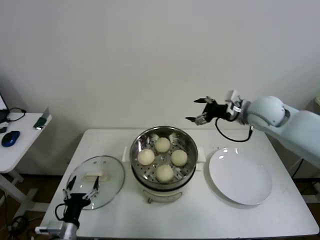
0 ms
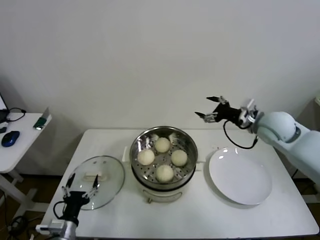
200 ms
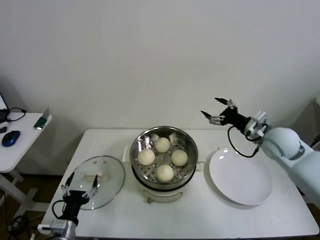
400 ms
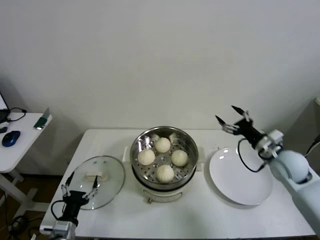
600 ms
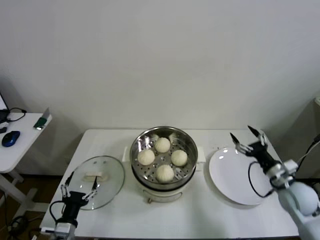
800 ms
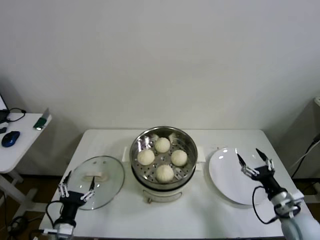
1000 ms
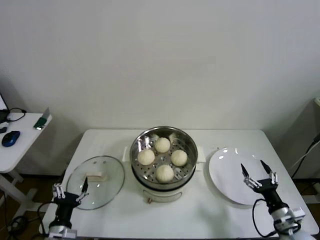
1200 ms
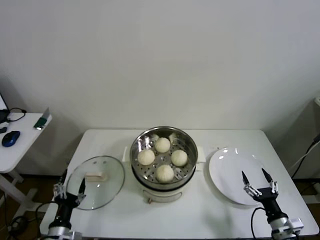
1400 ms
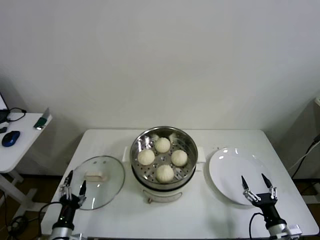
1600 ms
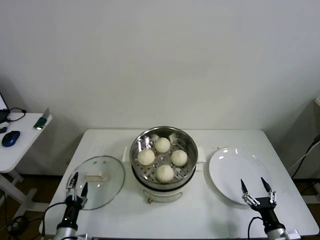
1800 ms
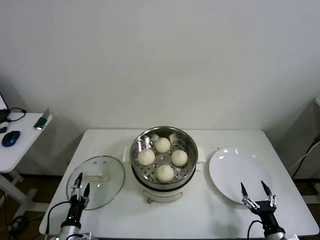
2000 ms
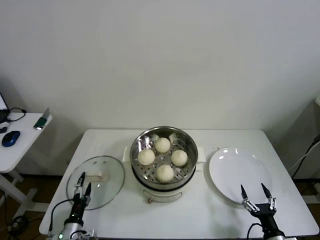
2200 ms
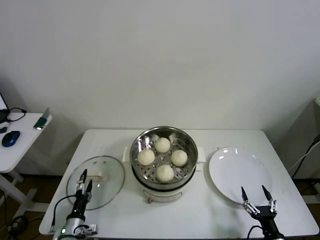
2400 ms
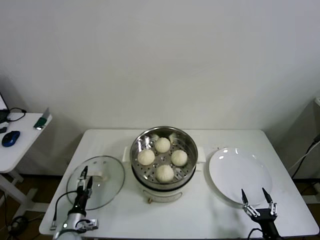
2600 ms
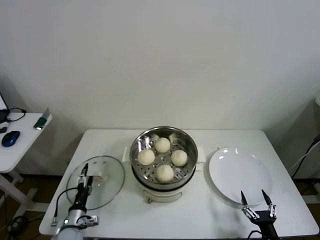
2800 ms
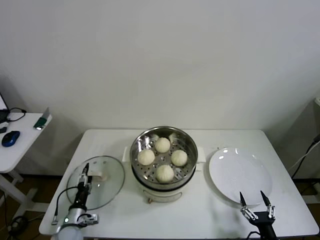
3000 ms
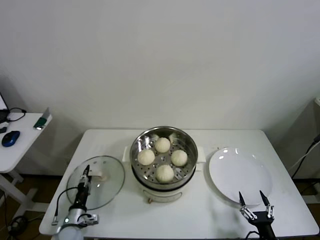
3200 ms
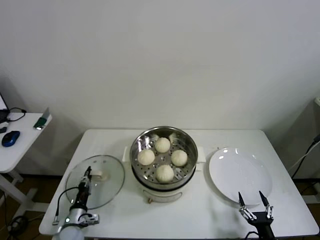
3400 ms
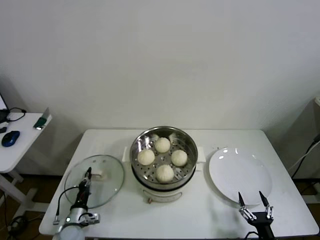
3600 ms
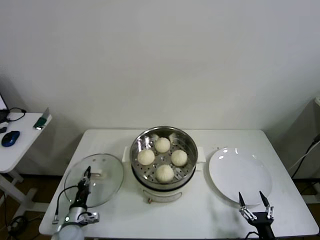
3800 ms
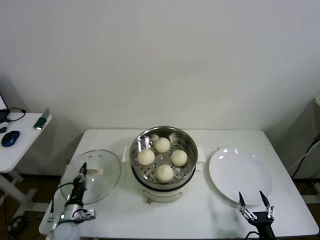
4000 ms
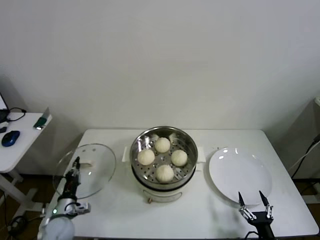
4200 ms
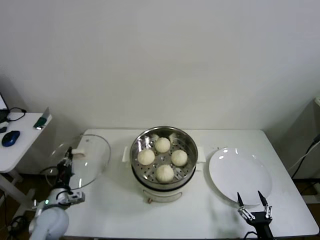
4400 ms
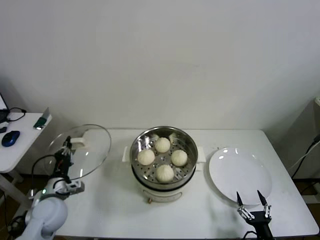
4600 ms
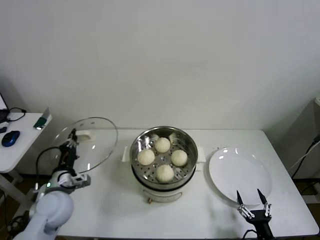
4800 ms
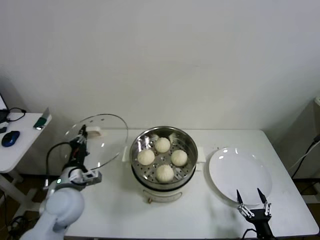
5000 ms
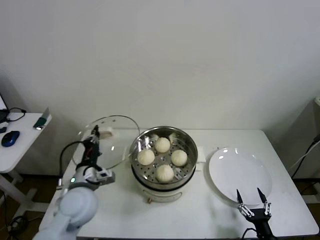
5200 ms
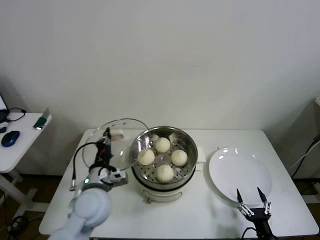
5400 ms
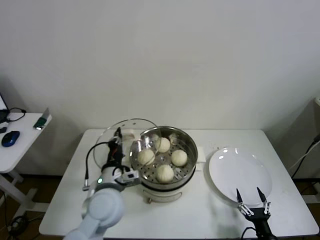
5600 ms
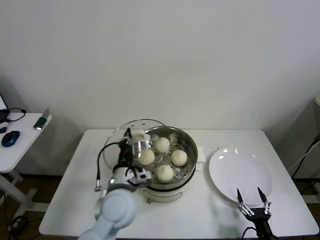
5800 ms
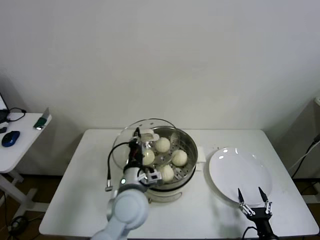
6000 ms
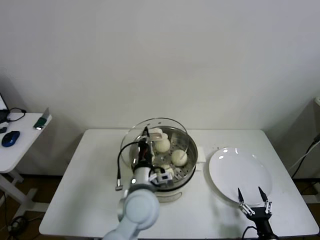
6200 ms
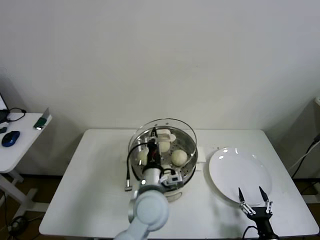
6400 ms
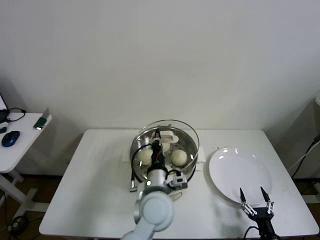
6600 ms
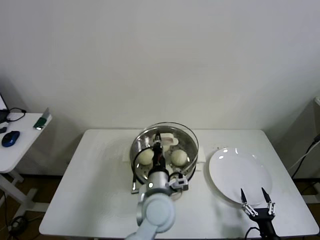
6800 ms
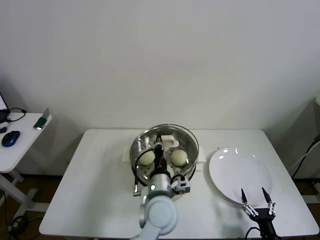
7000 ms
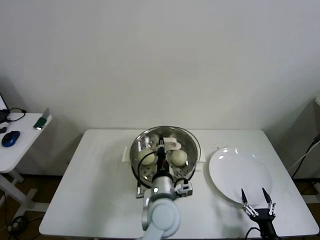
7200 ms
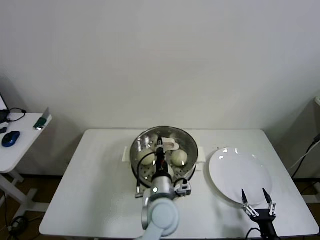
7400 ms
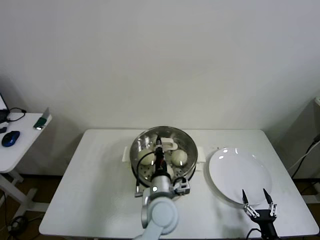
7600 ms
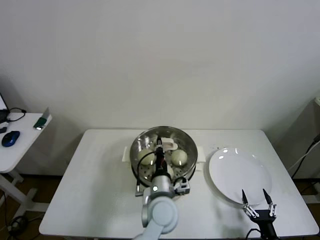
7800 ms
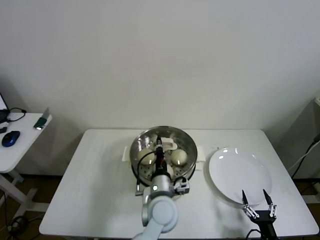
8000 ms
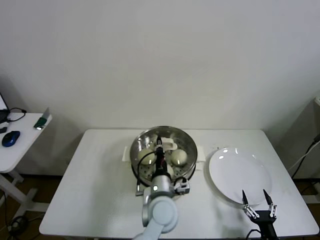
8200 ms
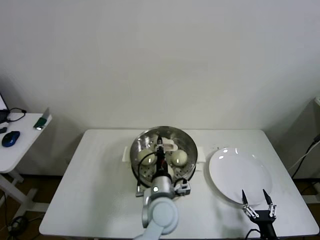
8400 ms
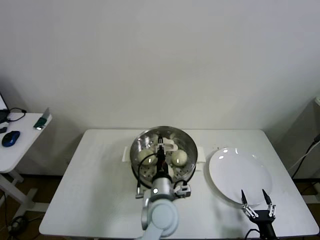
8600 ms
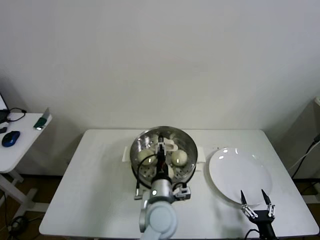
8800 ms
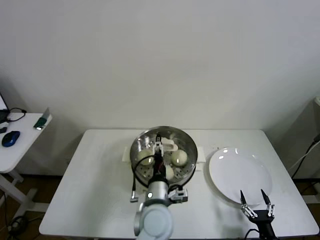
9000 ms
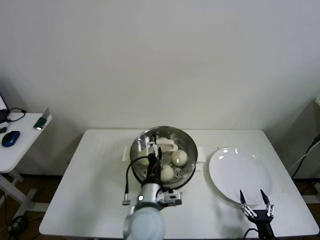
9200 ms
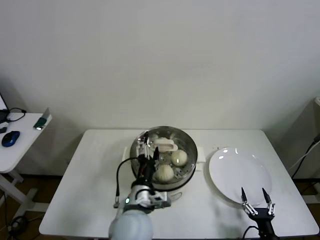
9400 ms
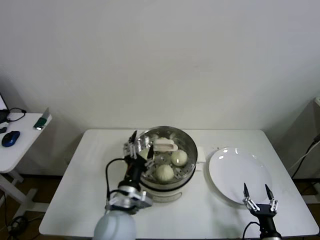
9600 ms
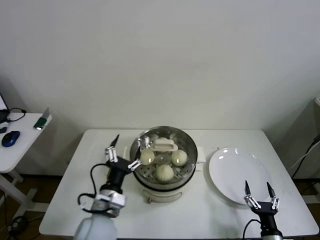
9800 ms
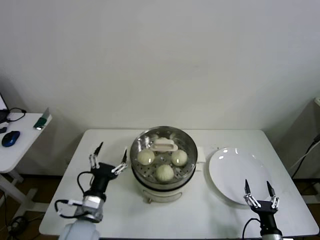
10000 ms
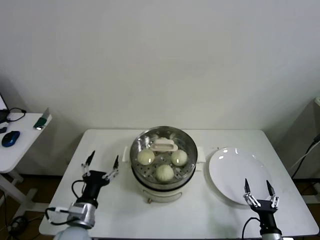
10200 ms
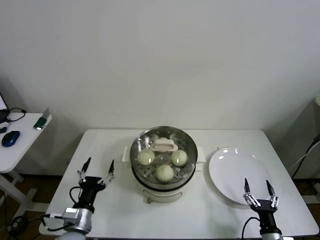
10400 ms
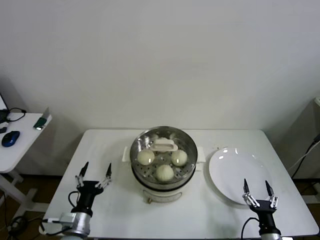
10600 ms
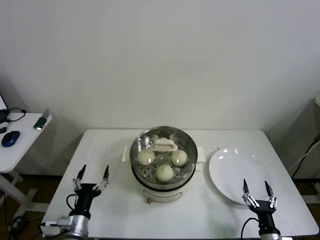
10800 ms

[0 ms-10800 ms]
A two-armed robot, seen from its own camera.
Step, 0 ms to 3400 ms: Grasp the pot lid with left gripper.
Step, 3800 ms to 8600 ms: Place the pot lid on the steamer with left gripper.
0 ms to 1600 ms: The right gripper is displaced downward and backward by approximately 50 cm.
1600 ms to 3000 ms: The right gripper heads backward, covering approximately 5 cm, while the left gripper travels forward and downward by some 10 cm.
3000 ms to 4600 ms: The left gripper goes roughly 15 cm upward, and closes.
4600 ms to 6200 ms: The left gripper heads to the right, covering about 30 cm.
6200 ms to 7800 ms: The left gripper moves to the right and downward, some 10 cm.
7800 ms to 9200 ms: The left gripper opens up.
9200 ms to 10800 ms: The left gripper heads to the left, covering some 25 cm.

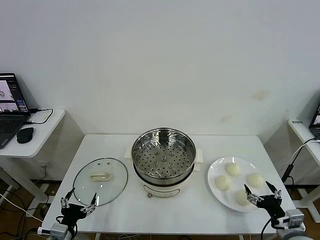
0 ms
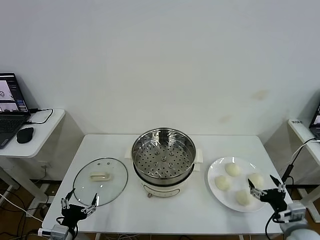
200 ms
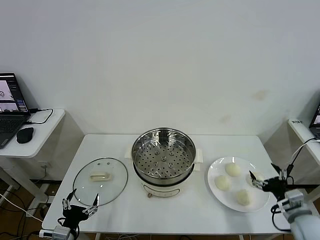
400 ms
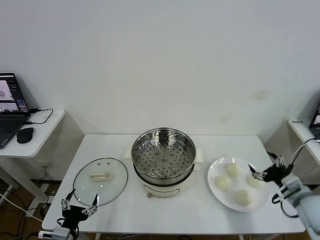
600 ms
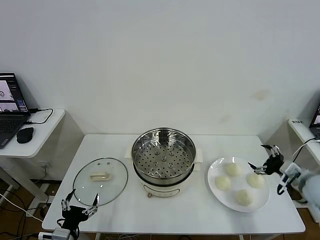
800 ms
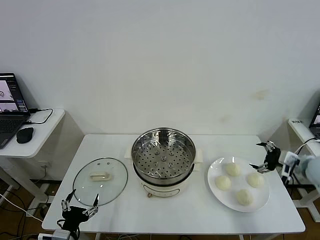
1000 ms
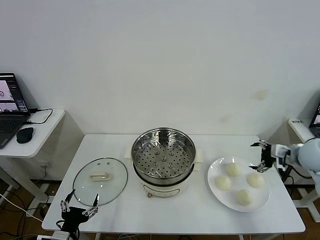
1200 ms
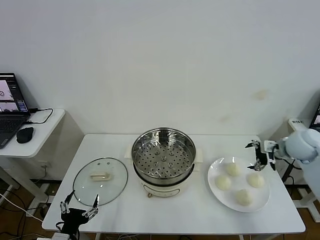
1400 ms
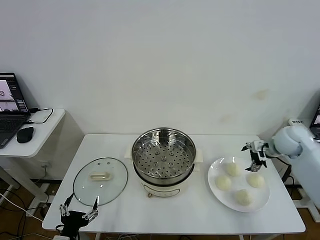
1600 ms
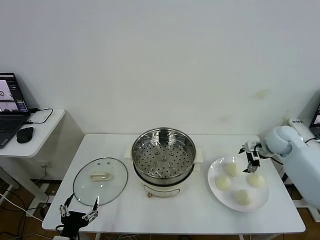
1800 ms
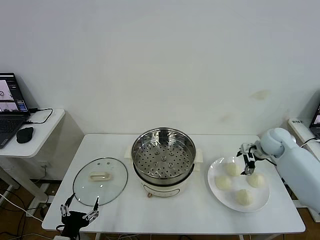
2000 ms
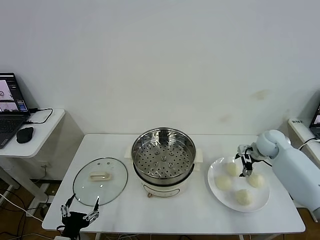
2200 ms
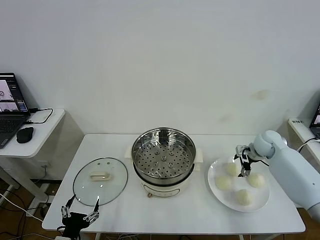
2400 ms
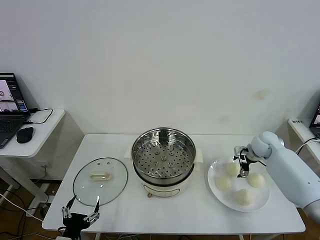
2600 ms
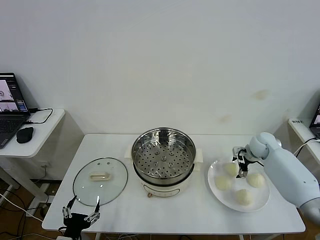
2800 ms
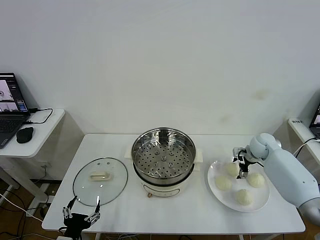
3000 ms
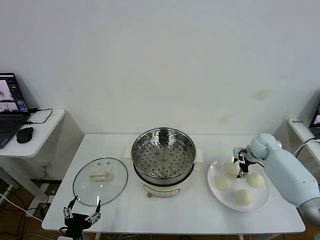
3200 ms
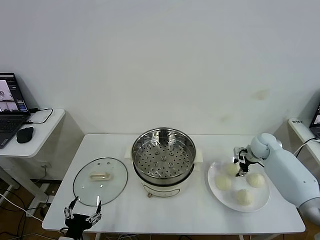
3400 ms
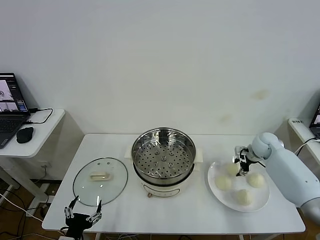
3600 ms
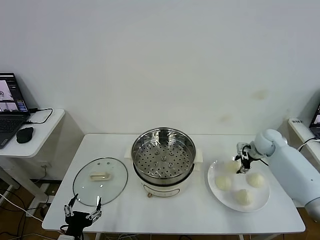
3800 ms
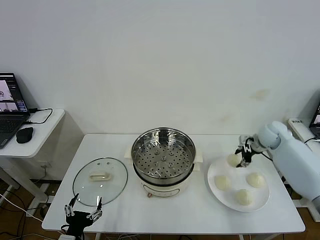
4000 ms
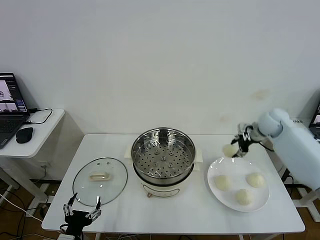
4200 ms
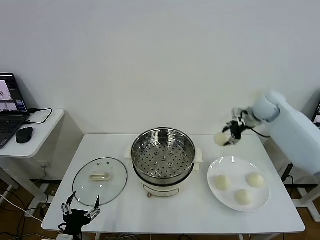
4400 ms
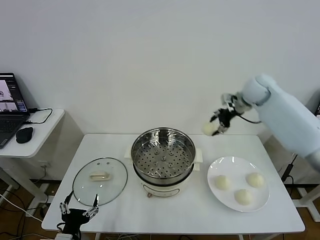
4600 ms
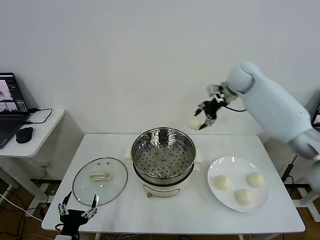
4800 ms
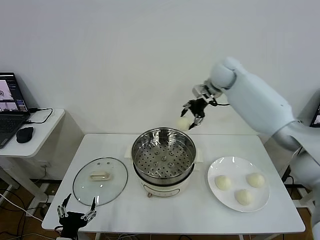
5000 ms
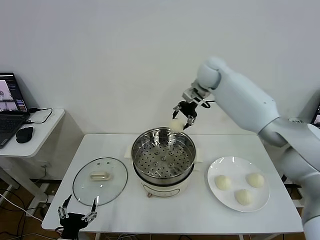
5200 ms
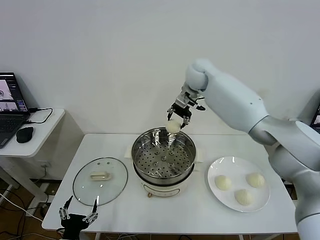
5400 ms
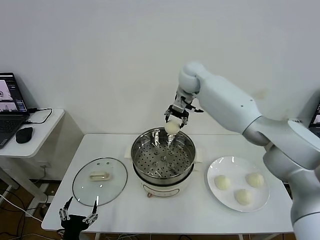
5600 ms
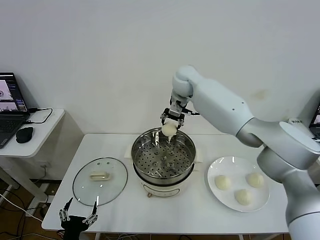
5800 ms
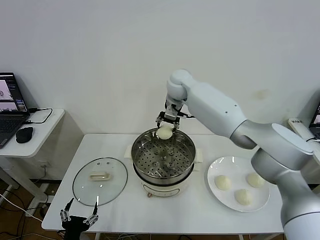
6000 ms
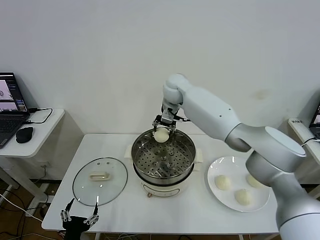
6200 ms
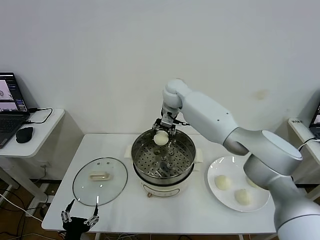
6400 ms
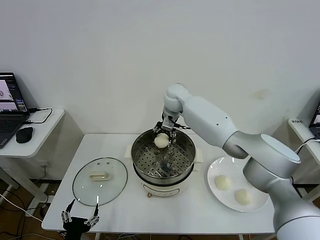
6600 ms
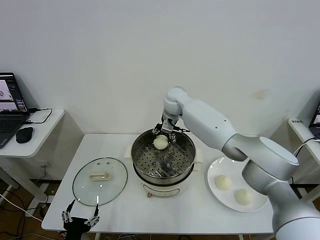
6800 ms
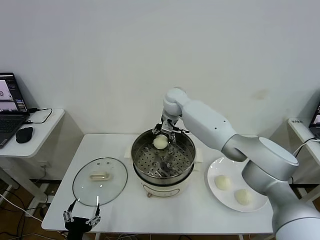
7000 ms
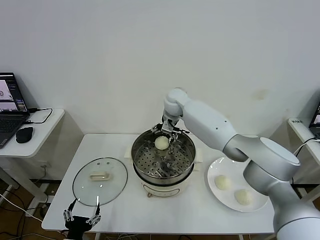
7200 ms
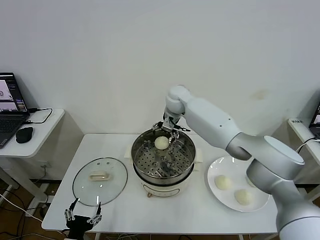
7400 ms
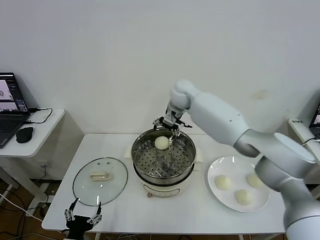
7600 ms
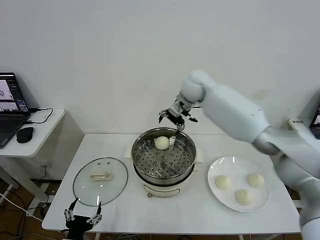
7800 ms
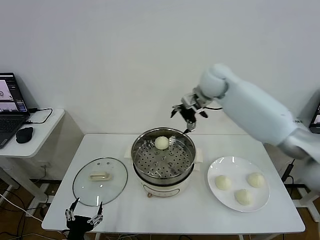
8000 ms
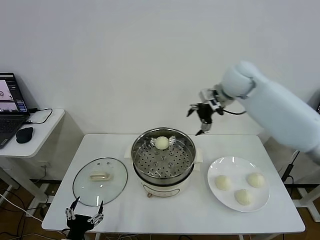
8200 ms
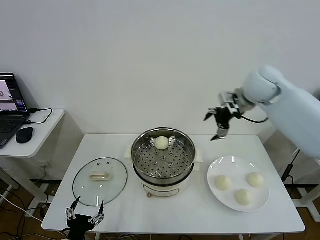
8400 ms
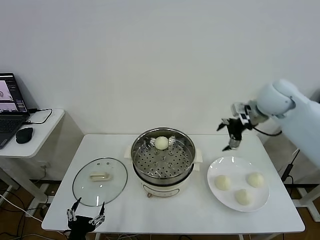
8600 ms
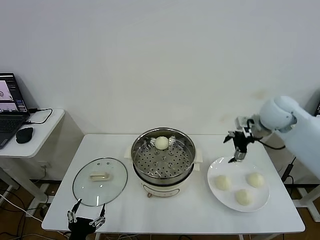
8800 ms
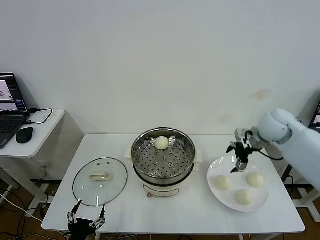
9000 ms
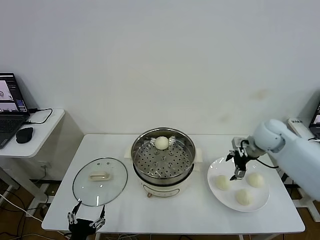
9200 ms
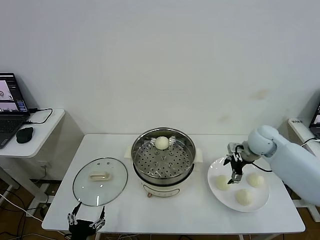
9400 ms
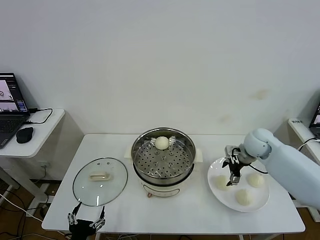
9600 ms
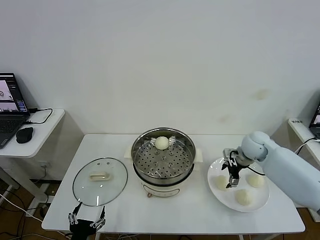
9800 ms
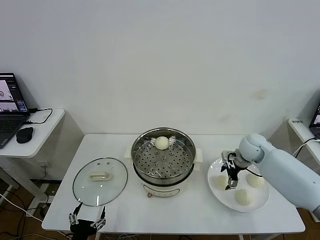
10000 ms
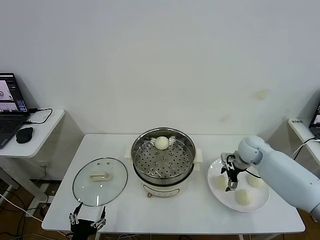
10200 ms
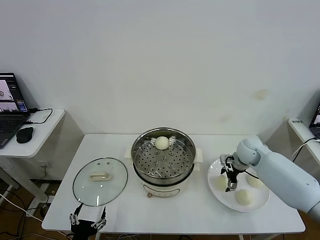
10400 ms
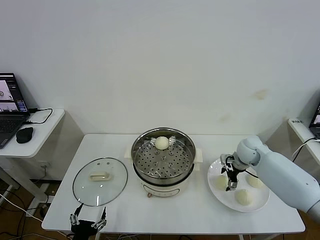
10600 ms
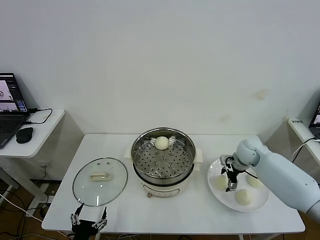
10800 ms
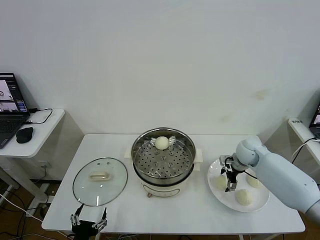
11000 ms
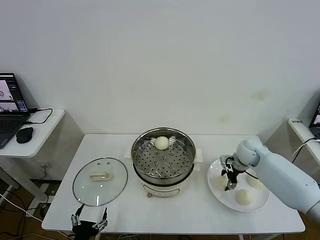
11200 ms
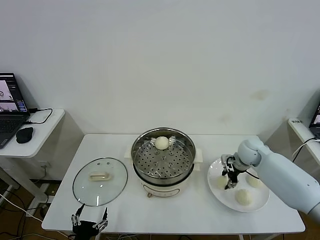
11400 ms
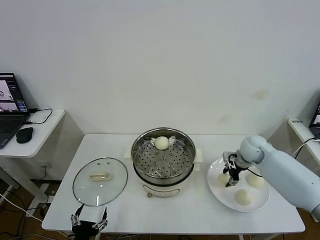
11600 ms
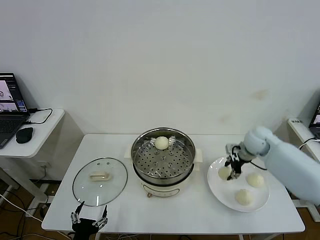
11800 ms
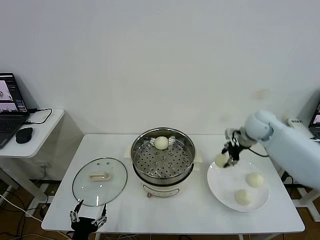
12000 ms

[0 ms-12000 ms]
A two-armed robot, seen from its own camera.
Step, 0 ms to 3400 ms: Grasp the baozi in the plate with right gripper.
Step, 3600 ms to 7400 ms: Place the baozi on the steamer with right gripper.
Step, 7600 ms to 11400 ms: Grasp the baozi in the plate with right gripper.
1600 ms to 3000 ms: The right gripper shifts some 10 cm downward.
3000 ms to 4400 ms: The right gripper moves upward, roughly 20 cm, and closes.
4400 ms to 6000 ms: The right gripper is displaced to the left by some 30 cm.
6000 ms to 7600 ms: The right gripper opens up.
7600 ms to 9000 ms: The right gripper travels to the right and backward by about 30 cm.
9000 ms to 10400 ms: The right gripper goes about 15 cm downward.
10400 ms to 12000 ms: The right gripper moves upward, approximately 15 cm, and closes up.
